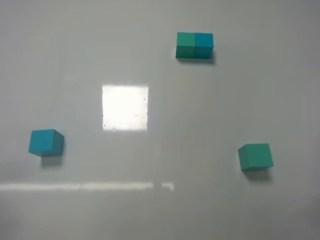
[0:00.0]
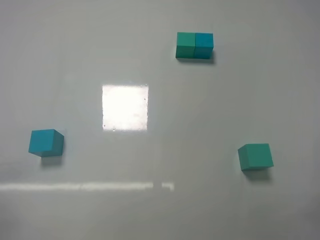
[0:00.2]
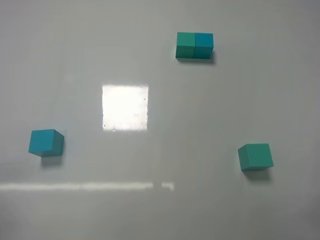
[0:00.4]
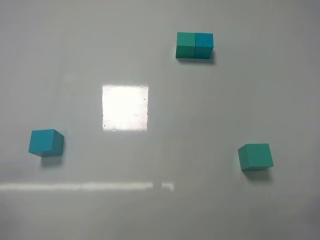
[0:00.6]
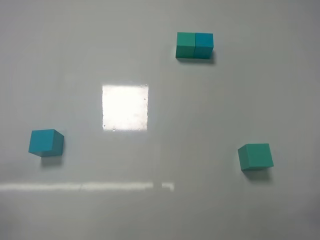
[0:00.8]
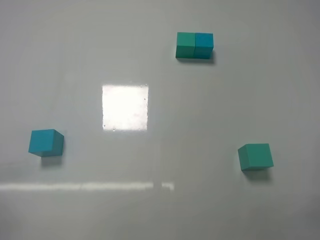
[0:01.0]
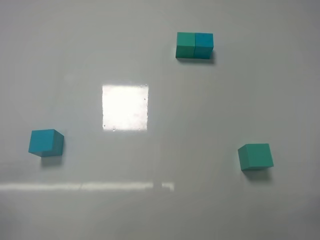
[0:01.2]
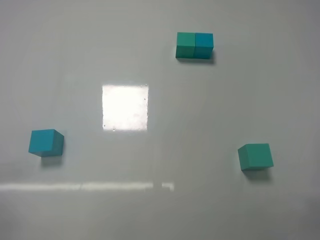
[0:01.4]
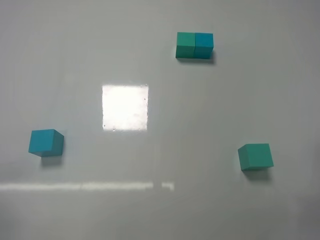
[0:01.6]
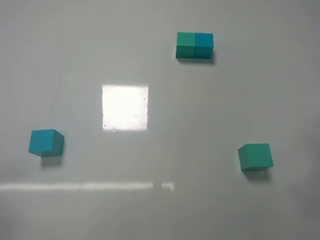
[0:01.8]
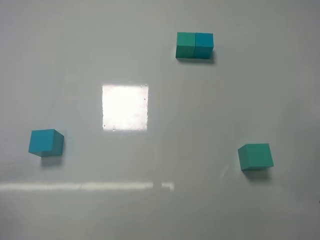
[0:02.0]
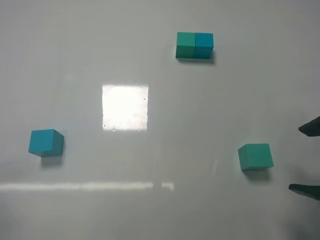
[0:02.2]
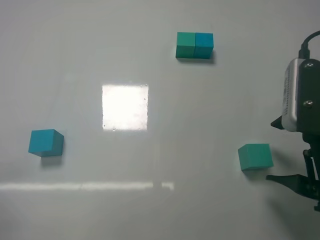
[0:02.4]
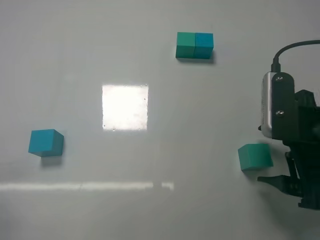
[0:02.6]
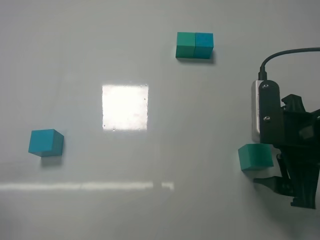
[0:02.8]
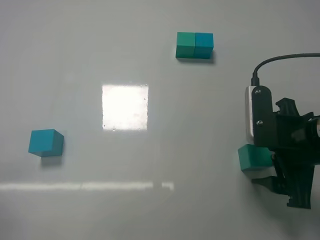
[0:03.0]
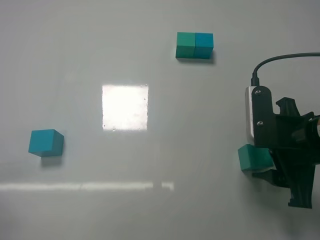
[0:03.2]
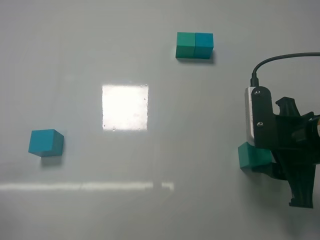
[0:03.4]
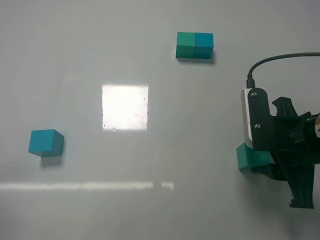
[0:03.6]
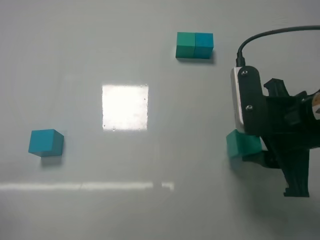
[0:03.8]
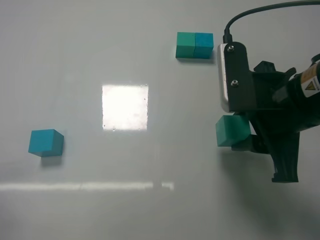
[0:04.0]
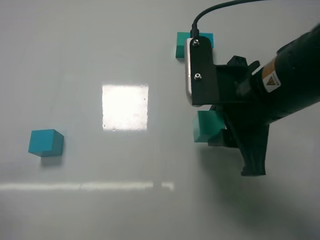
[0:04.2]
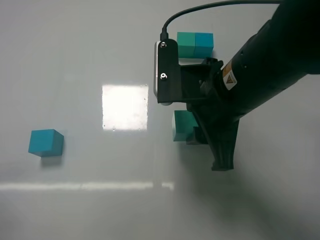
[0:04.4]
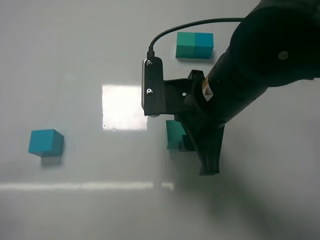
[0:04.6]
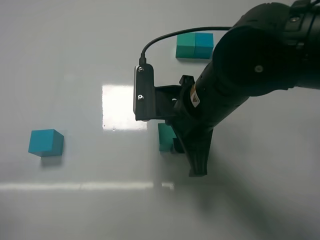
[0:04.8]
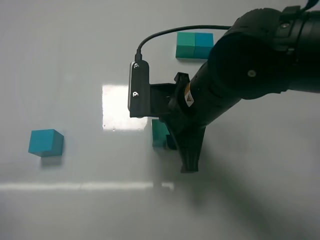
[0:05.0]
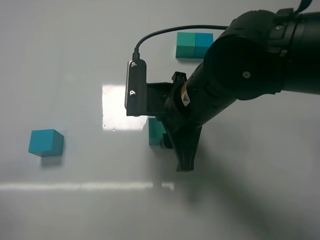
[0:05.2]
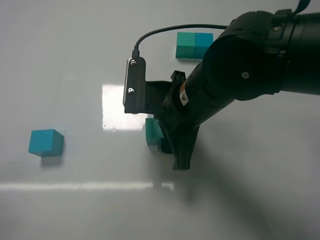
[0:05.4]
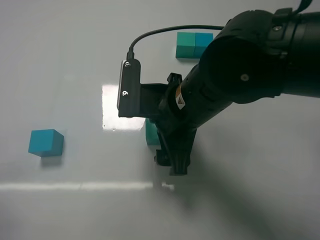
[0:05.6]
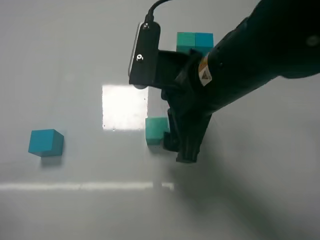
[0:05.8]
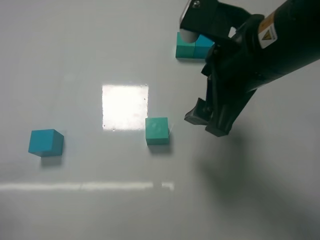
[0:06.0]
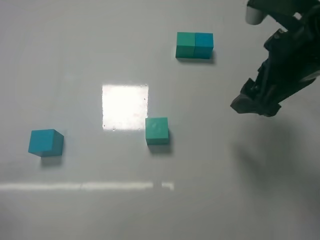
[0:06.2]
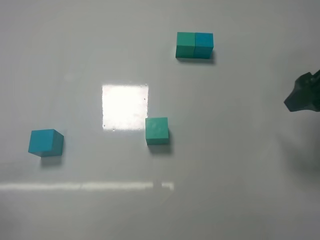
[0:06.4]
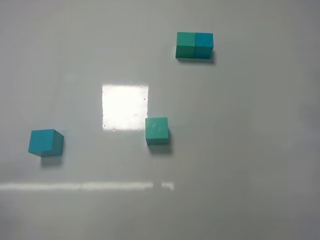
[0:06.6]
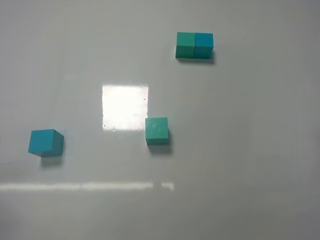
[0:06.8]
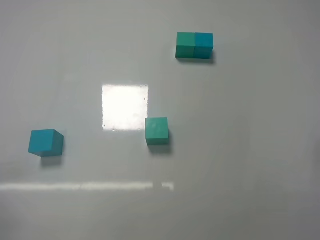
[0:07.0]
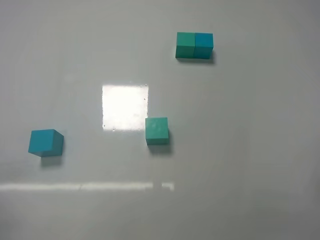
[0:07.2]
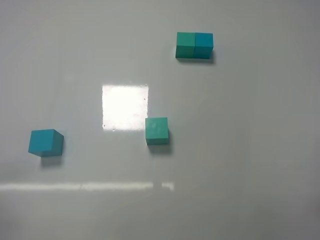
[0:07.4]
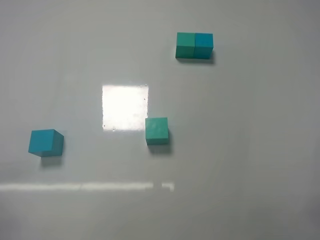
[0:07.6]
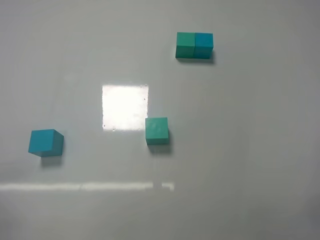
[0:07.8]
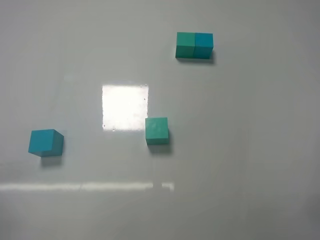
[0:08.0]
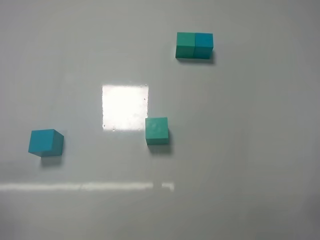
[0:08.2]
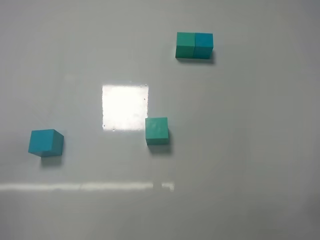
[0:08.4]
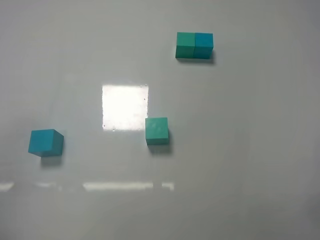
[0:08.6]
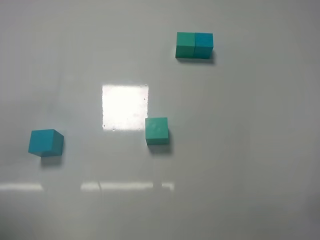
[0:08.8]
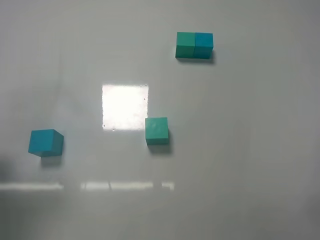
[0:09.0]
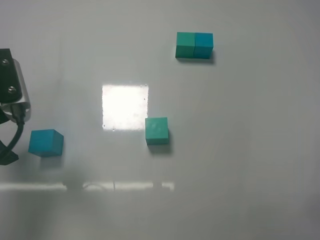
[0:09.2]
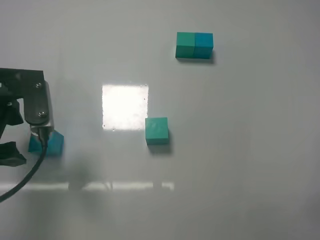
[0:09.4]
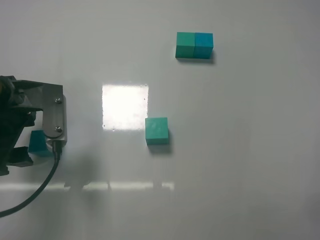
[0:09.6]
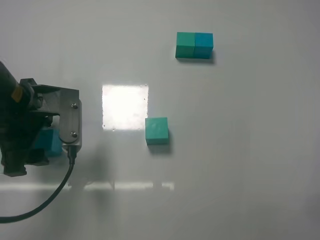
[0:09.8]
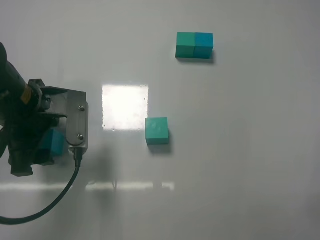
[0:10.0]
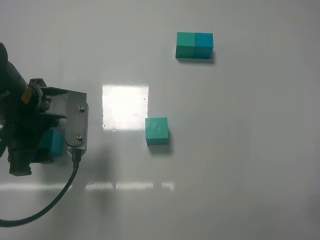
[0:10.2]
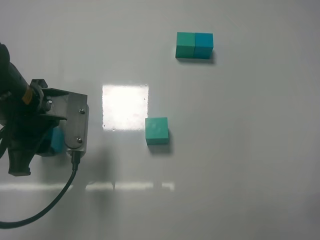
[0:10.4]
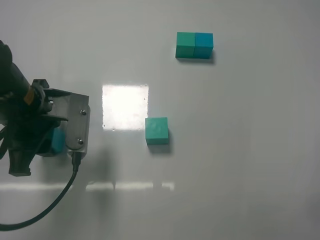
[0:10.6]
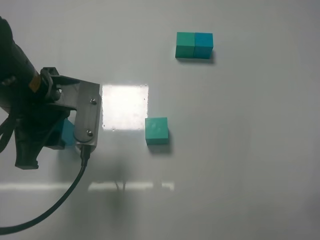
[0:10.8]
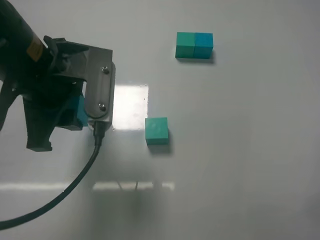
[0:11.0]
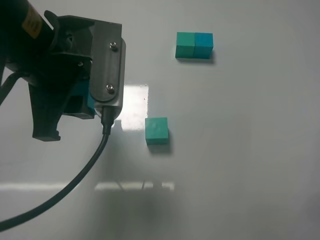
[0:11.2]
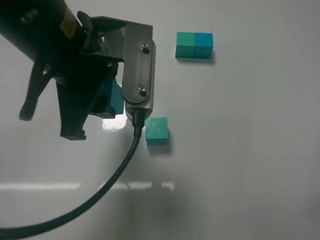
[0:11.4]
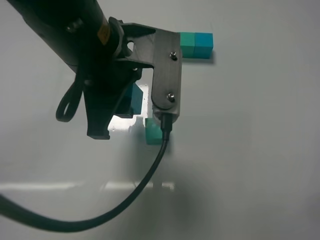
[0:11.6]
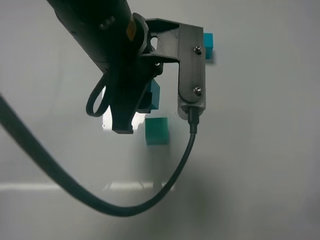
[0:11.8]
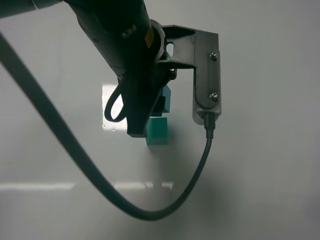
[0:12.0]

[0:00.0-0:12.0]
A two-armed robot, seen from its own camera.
Task of the whole recording: According to the building block template in front, assemble the scattered blocks together.
Step, 0:00.0 to 0:03.4: Grasp the green block with right gripper.
Step, 0:03.6 to 0:05.6: Adjust the position of the cube with the right gripper.
Step, 0:05.8 to 0:10.2: Grasp the blue block with left gripper.
0:01.6 to 0:03.0: The right gripper travels forward and to the left by approximately 20 cm.
0:03.0 to 0:04.4: The right gripper goes some 15 cm to the left and upward, and closes.
0:04.4 to 0:06.0: The right gripper shifts by about 5 cm, and opens.
0:06.0 to 0:07.6: The right gripper moves backward, to the right and downward, approximately 30 cm.
0:07.6 to 0:09.0: The left gripper travels forward and upward by some 20 cm.
0:09.0 to 0:10.4: The left gripper is displaced to the right, forward and downward by approximately 15 cm, and closes up.
0:10.4 to 0:12.0: The left gripper shifts some 15 cm to the right.

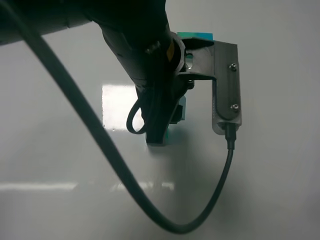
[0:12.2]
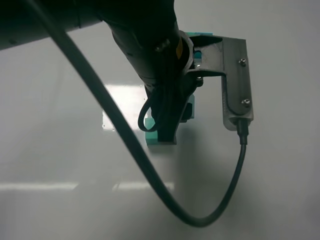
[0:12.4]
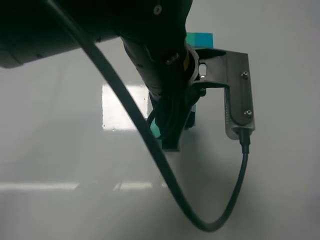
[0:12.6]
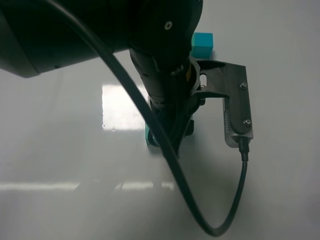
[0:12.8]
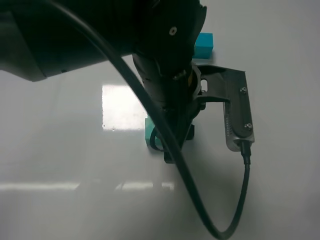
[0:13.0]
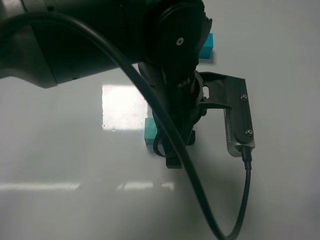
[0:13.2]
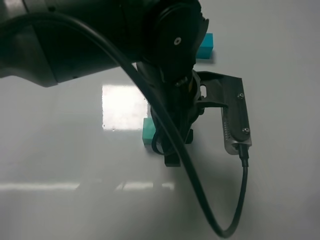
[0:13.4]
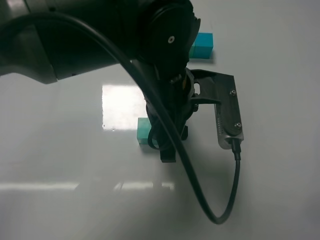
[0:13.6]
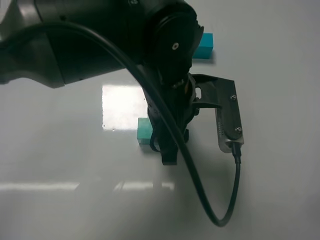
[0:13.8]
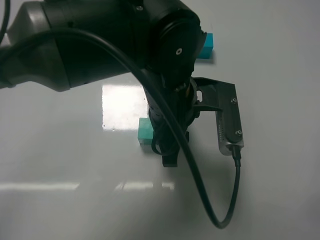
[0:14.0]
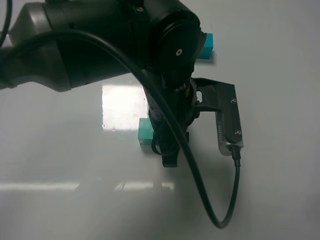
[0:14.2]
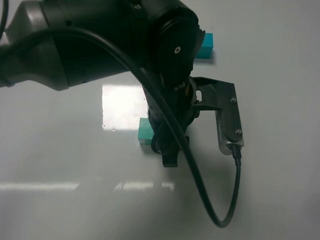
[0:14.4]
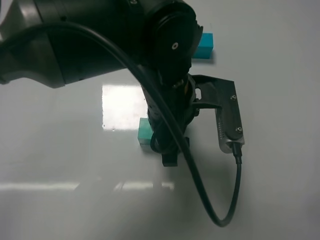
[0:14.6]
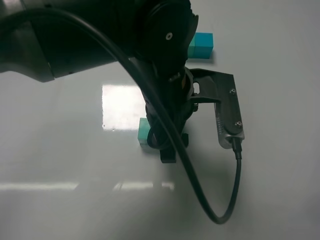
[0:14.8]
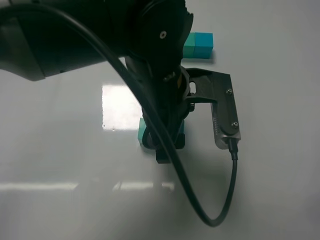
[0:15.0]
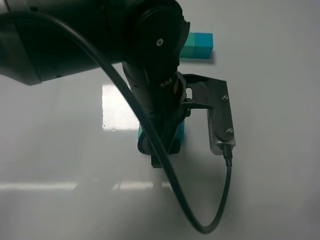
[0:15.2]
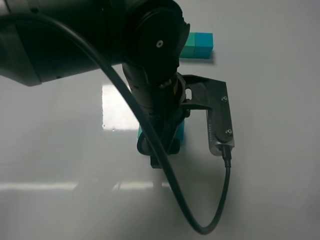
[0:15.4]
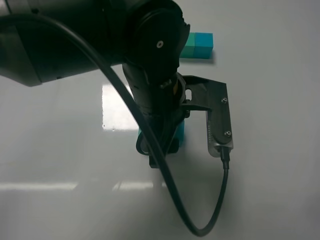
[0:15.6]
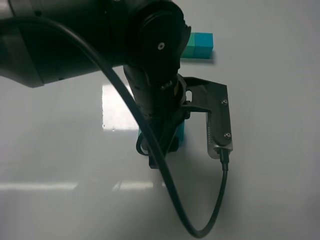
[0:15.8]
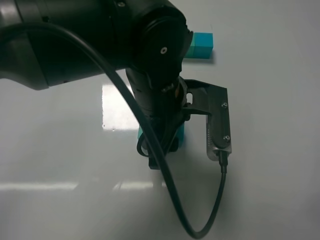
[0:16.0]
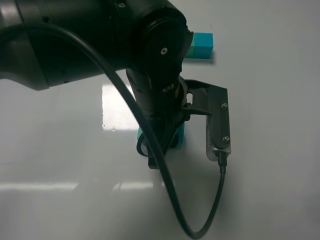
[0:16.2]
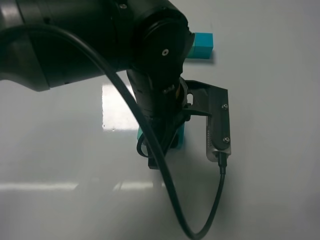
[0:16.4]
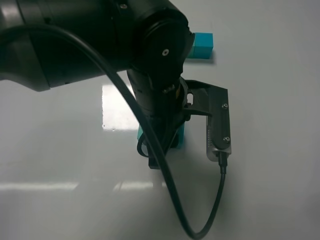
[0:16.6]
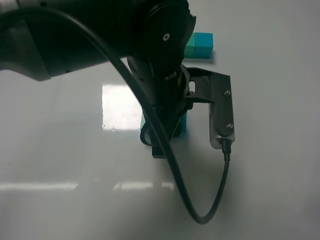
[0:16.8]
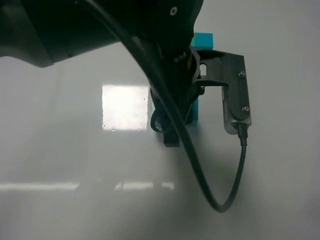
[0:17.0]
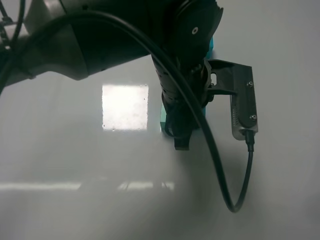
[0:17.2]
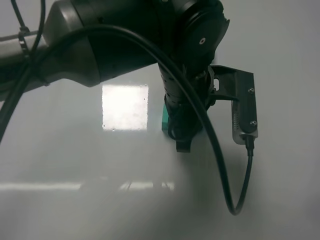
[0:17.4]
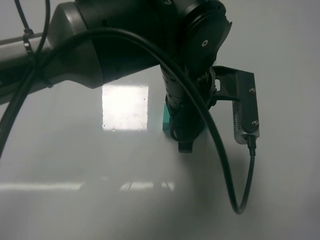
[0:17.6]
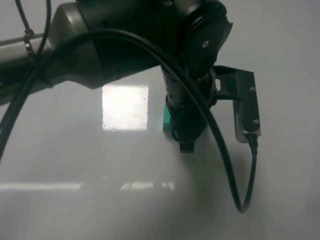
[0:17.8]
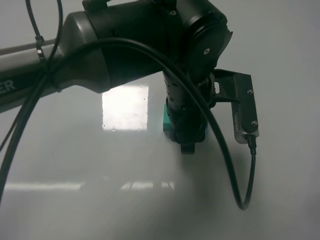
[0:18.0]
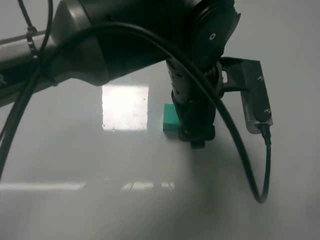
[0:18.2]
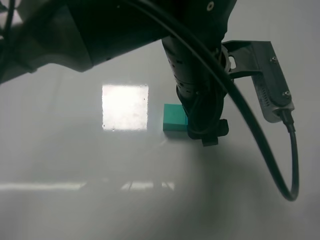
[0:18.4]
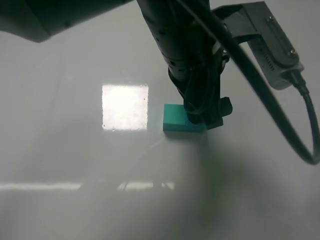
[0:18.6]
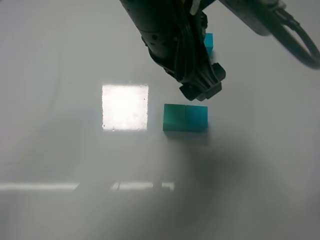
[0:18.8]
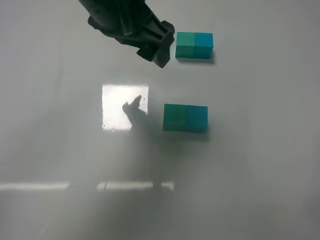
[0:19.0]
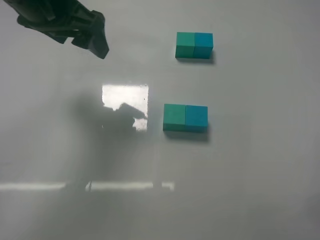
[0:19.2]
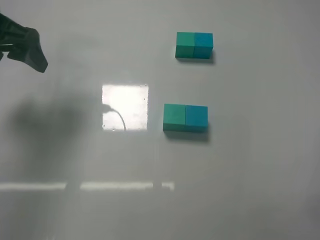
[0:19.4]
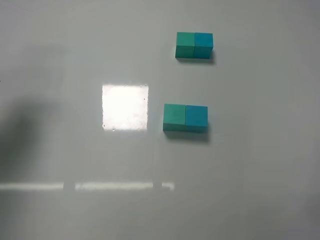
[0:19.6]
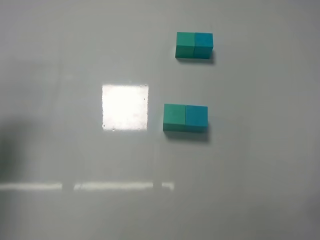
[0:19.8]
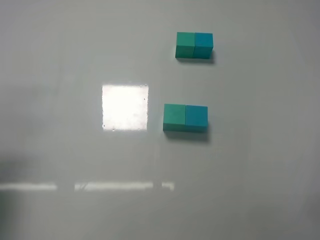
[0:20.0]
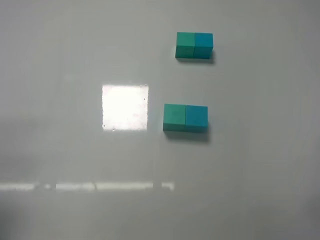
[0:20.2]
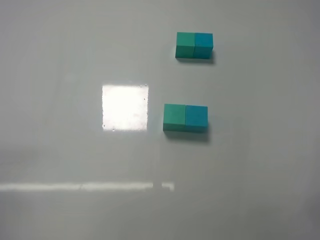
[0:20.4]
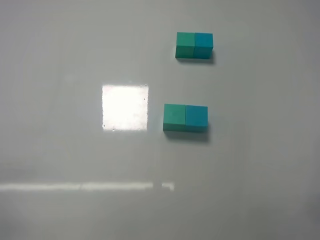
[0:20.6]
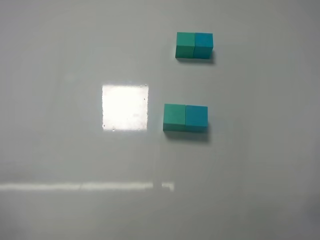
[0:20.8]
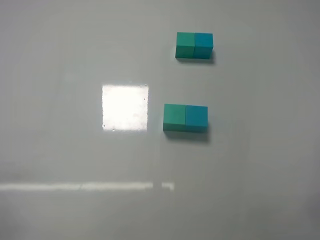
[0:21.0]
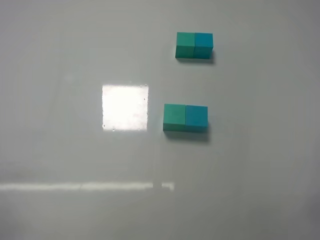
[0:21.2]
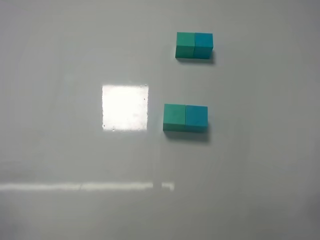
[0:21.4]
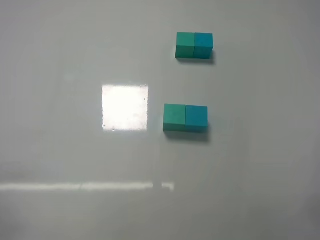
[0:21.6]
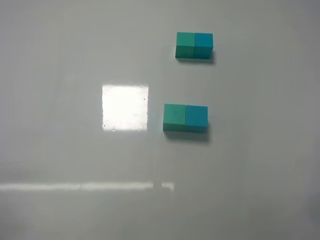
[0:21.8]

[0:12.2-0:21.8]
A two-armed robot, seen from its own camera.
Task of the whole recording: According to the building block template in front, assemble the scattered blocks together.
Step, 0:12.2 to 0:14.6: Put the blue cube on the right of the green cube with the left gripper.
Step, 0:14.8 to 0:18.2: Put the blue cube and green cube in the center of the table with the left gripper.
0:12.2 to 0:13.8: The left gripper is displaced downward by some 5 cm.
0:13.8 to 0:15.4: The left gripper opens.
0:15.4 to 0:17.0: The left gripper closes.
0:17.0 to 0:18.6: The left gripper opens.
0:18.6 to 0:20.2: The left gripper heads to the left and backward, covering approximately 40 cm.
